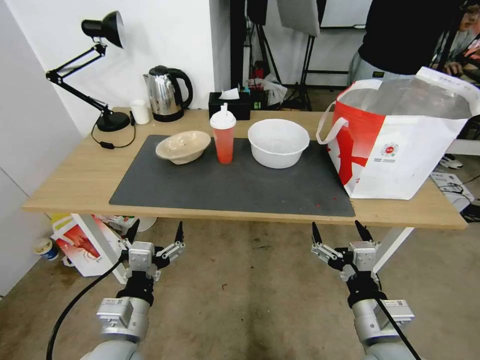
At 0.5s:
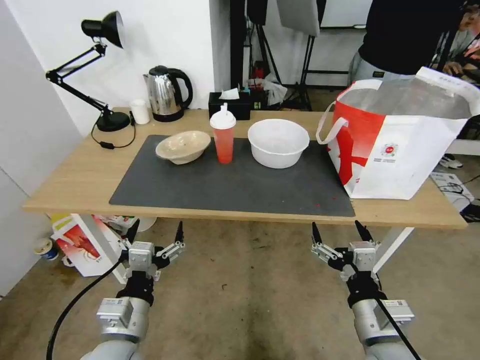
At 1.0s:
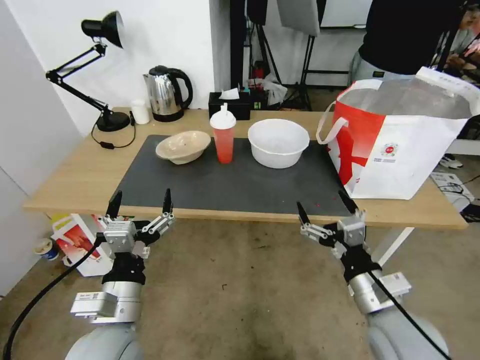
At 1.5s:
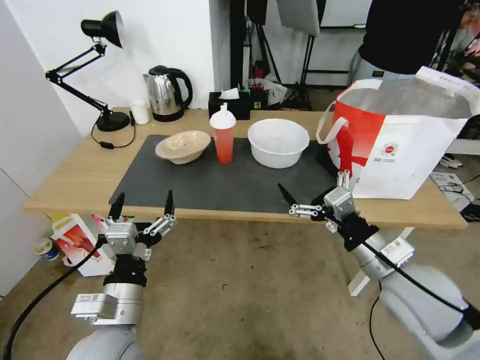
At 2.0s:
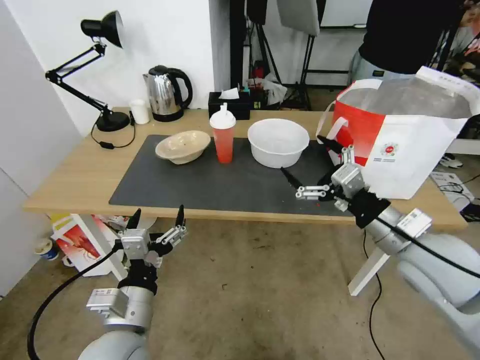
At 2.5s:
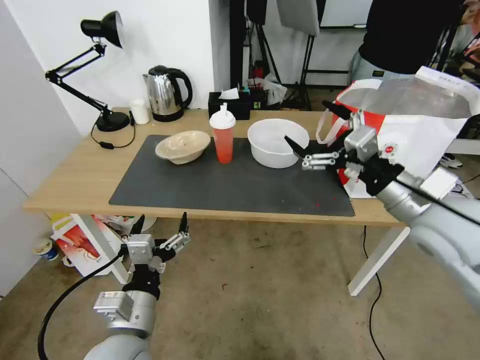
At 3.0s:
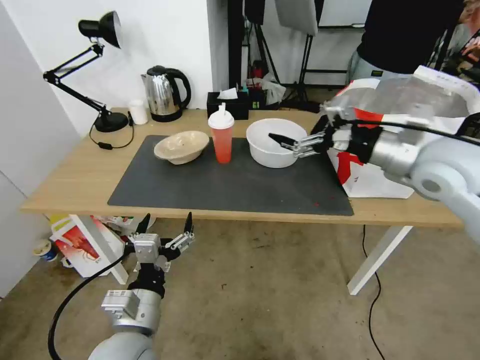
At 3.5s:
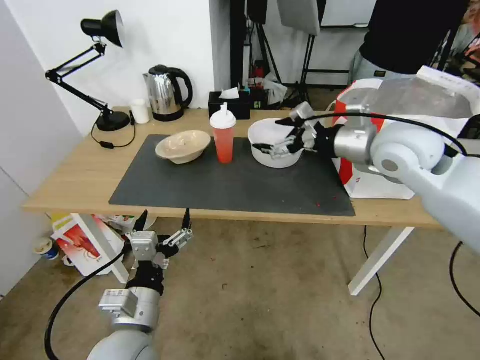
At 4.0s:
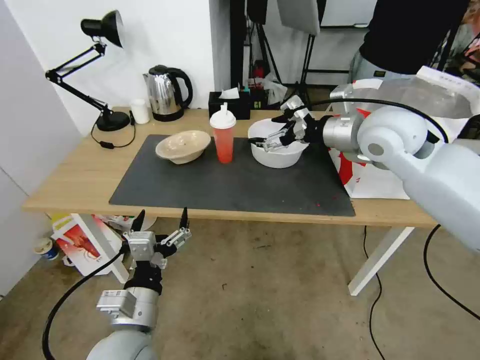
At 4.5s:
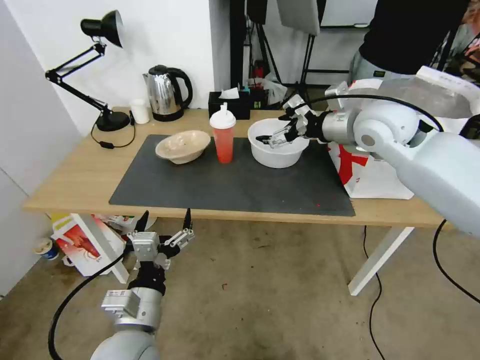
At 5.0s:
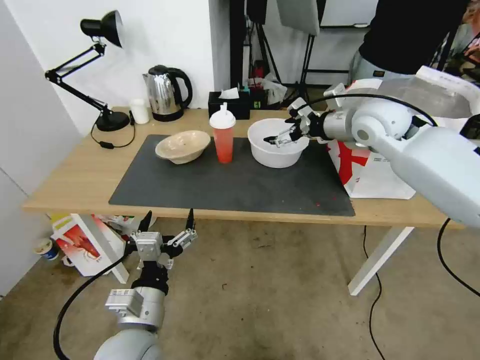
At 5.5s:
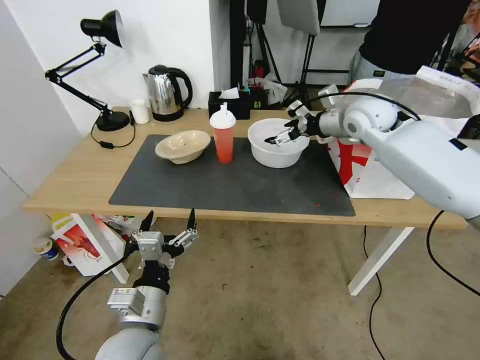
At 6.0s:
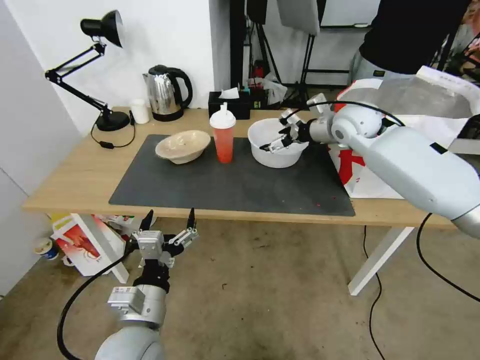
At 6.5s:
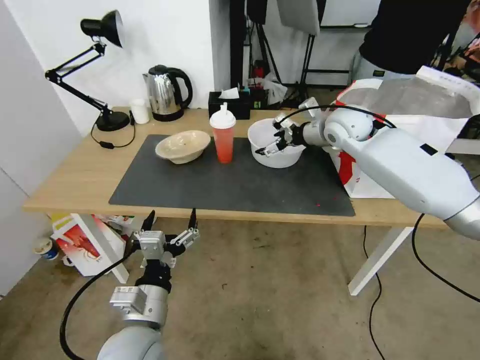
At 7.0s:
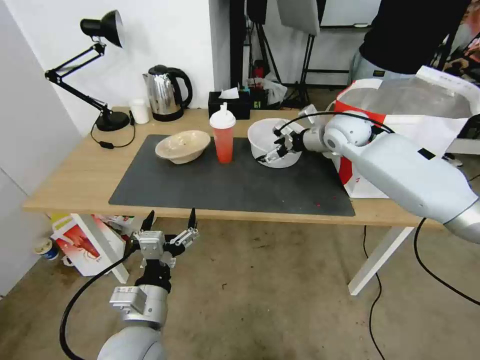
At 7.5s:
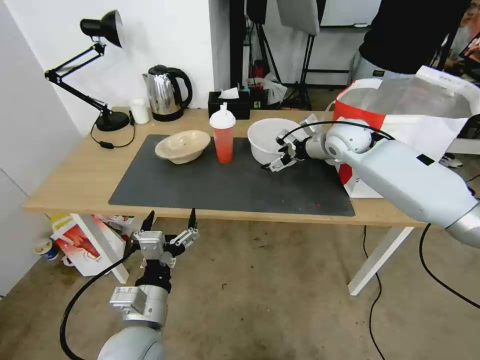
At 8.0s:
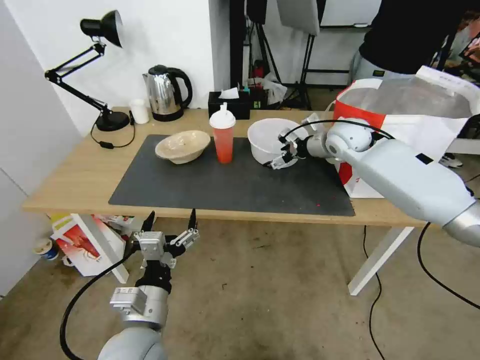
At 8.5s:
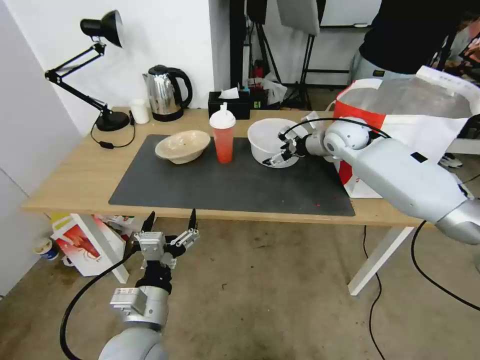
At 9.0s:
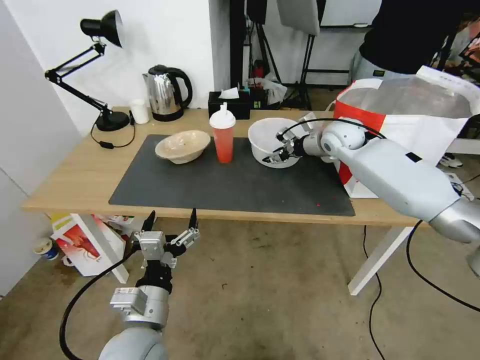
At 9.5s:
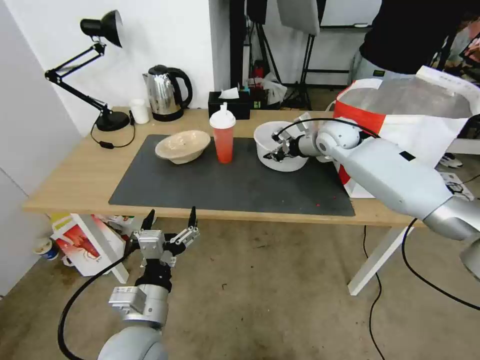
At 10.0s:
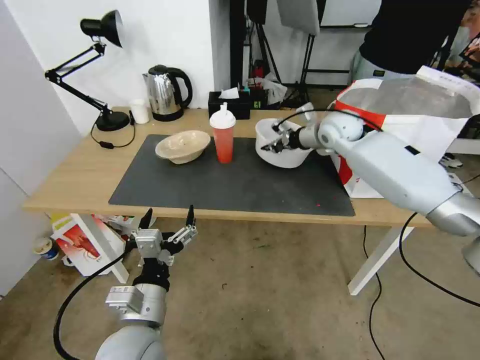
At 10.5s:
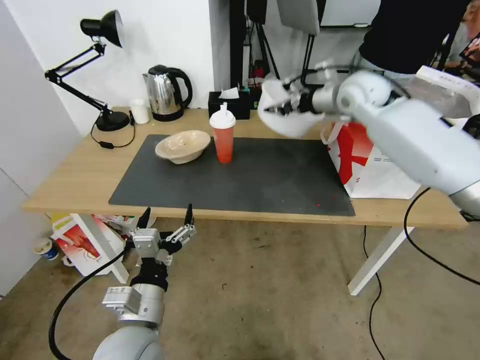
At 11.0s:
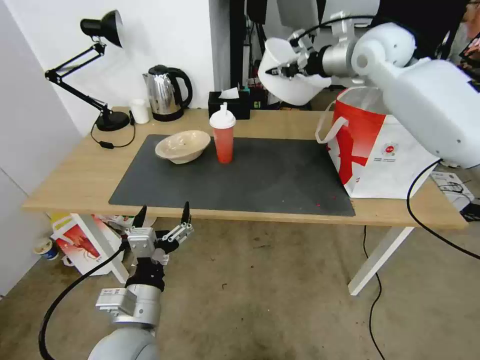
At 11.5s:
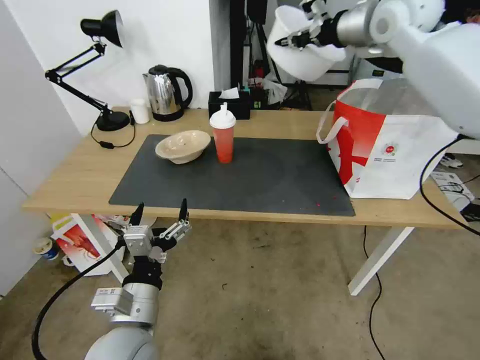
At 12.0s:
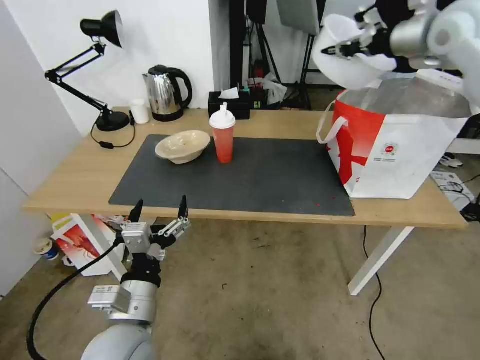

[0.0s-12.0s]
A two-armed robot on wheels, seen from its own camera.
Task of the whole recording: Pick up the trash from the table and place it into the takeout bag.
2.0s to 4.0s: The right gripper is displaced forward and upward by roughly 20 cm.
4.0s to 6.0s: The right gripper travels forward and downward by approximately 15 cm.
6.0s to 8.0s: There are only small adjustments of the grippers.
8.0s to 10.0s: The right gripper closes its fingers.
10.0s to 12.0s: The right gripper goes about 25 cm upward and to the right.

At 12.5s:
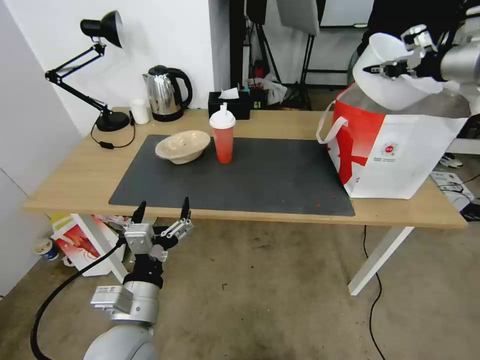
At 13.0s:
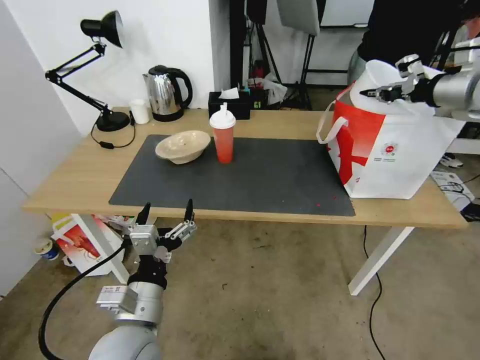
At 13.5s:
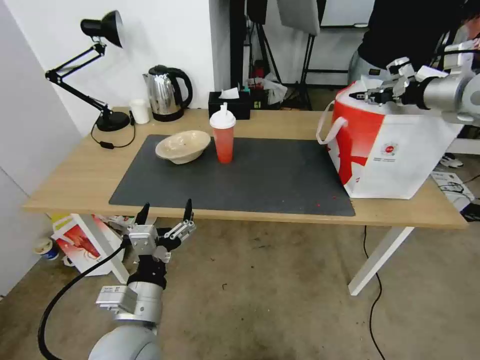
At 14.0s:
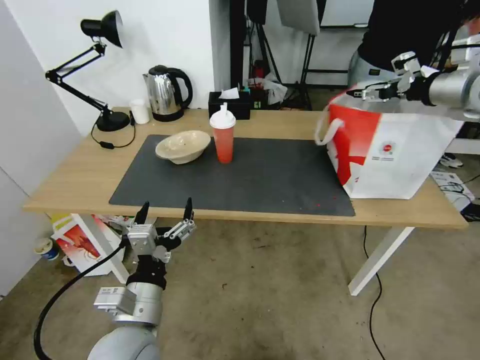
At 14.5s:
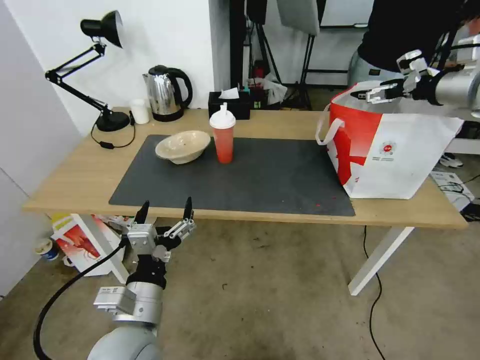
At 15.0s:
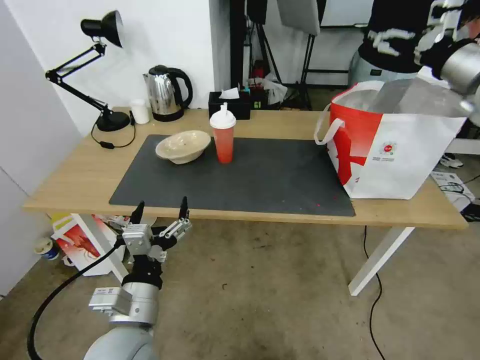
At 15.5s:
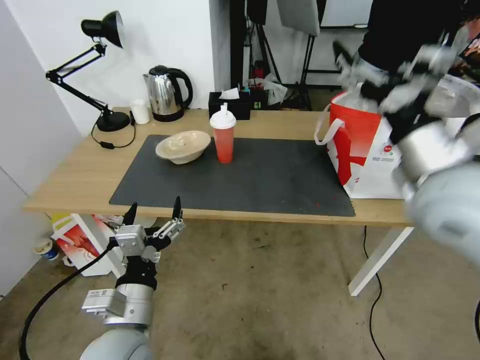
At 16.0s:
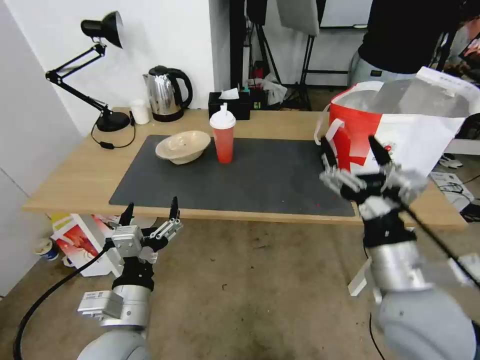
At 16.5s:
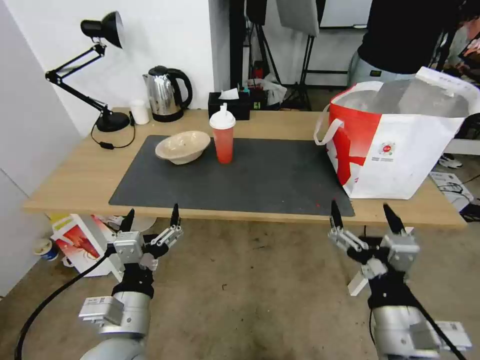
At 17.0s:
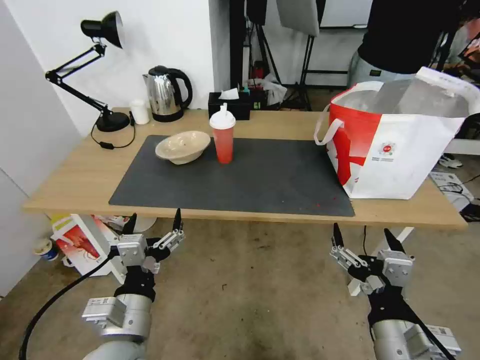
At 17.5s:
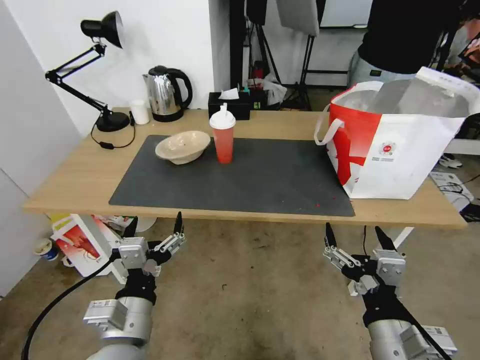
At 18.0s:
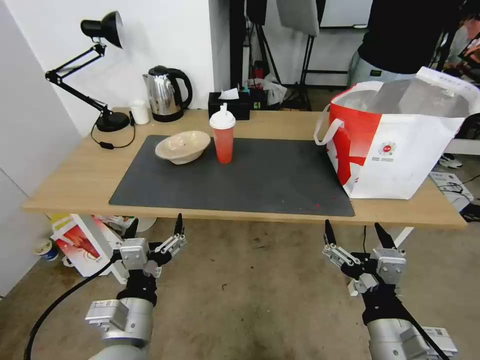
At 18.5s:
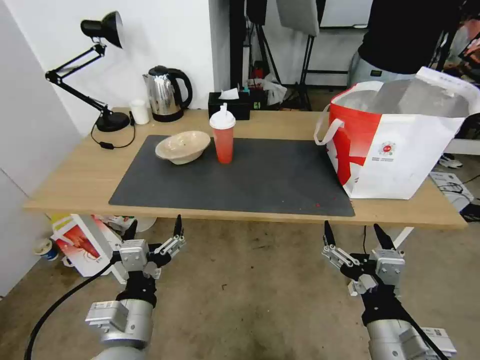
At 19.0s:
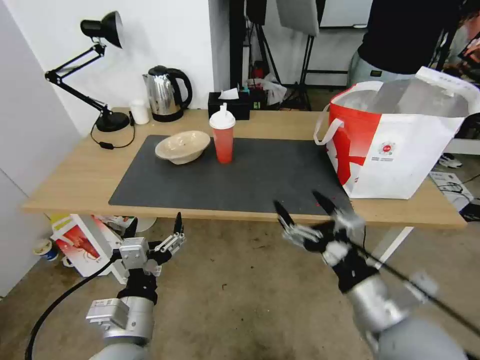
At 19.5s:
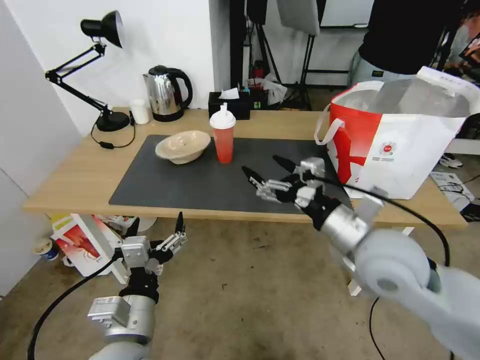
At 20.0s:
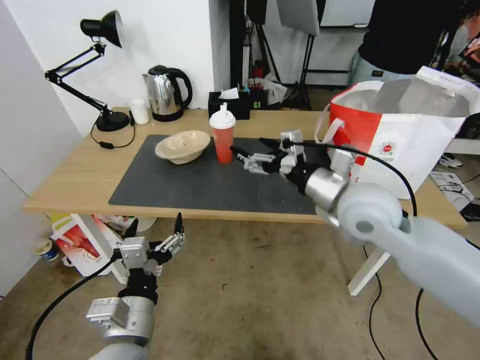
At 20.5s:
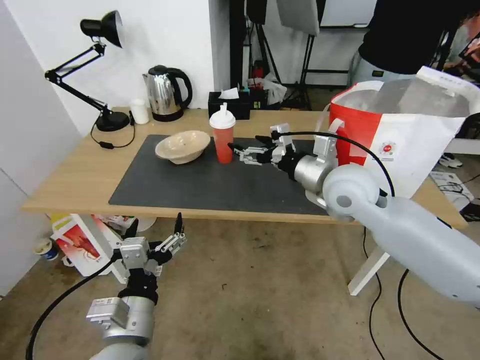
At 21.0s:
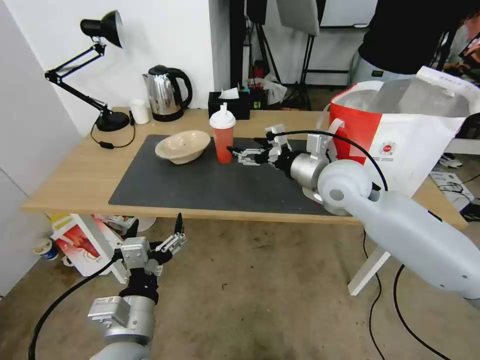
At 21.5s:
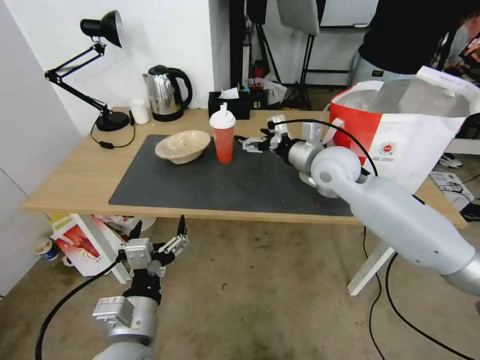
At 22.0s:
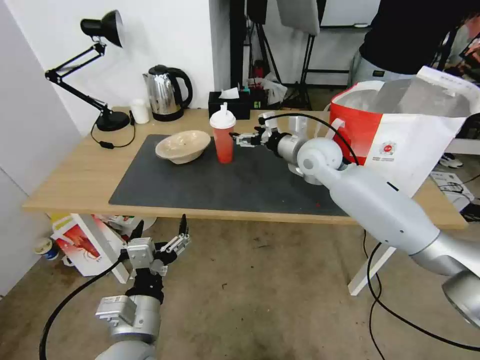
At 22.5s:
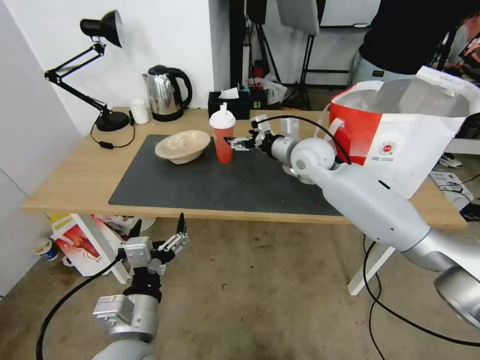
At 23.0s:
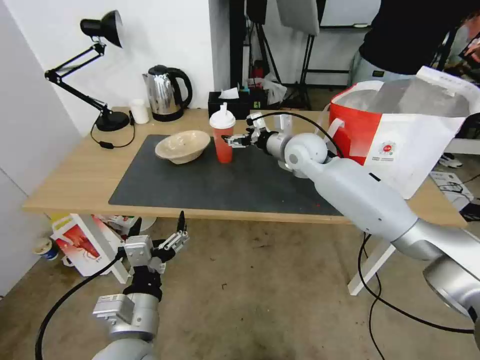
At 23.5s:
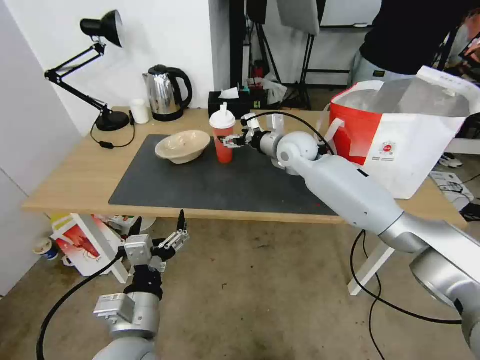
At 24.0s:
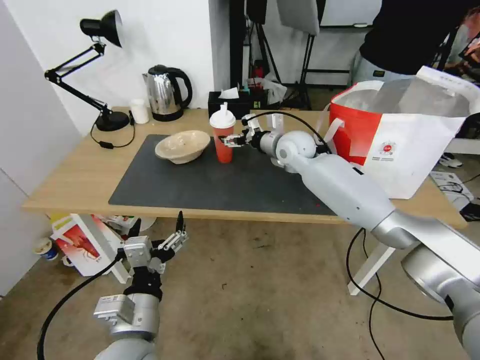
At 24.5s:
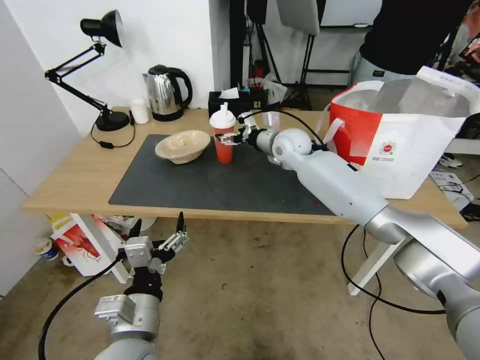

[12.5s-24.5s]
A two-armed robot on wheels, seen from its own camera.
Task of the whole recording: Pick up the trash from the table and place it into the takeout bag.
12.5s to 14.5s: The right gripper opens its fingers.
14.5s to 16.5s: The right gripper moves backward, downward and to the left, roughly 50 cm.
16.5s to 18.5s: The grippers move only a little.
18.5s to 20.5s: The right gripper goes some 30 cm forward.
20.5s to 22.5s: The right gripper travels forward by roughly 15 cm.
22.5s to 24.5s: The right gripper heads forward, covering some 5 cm.

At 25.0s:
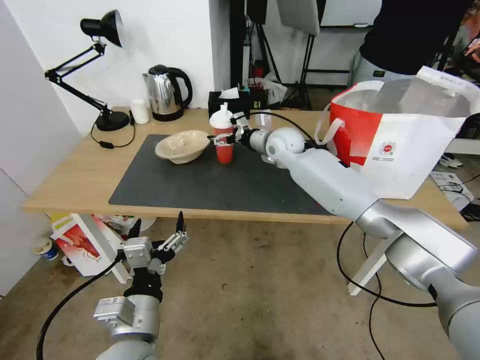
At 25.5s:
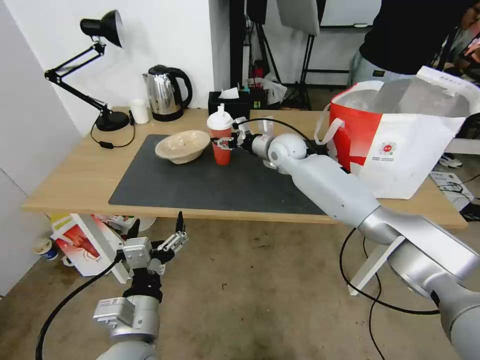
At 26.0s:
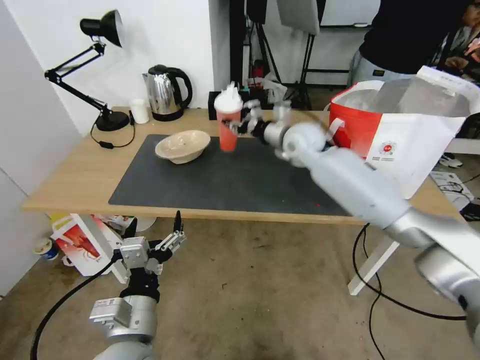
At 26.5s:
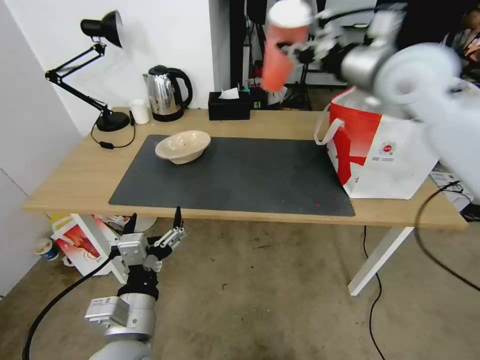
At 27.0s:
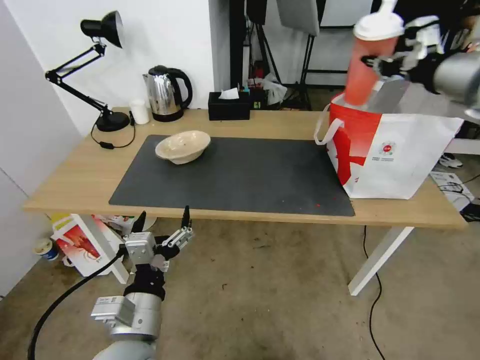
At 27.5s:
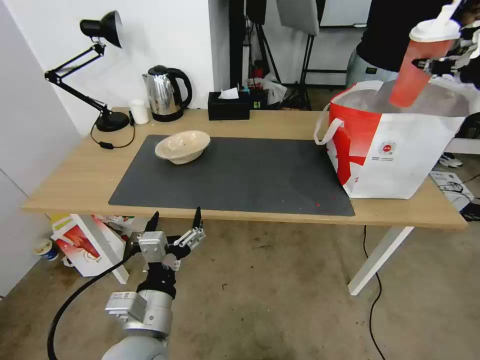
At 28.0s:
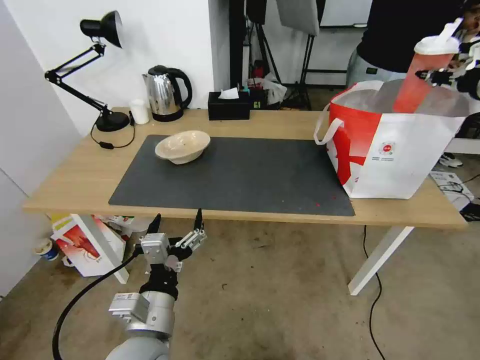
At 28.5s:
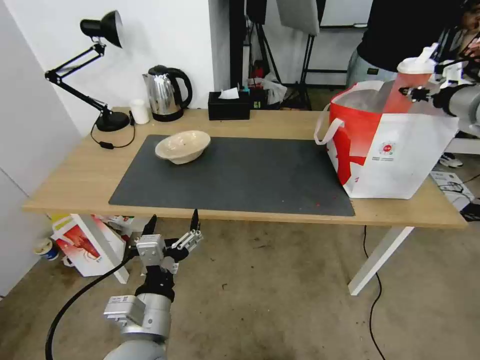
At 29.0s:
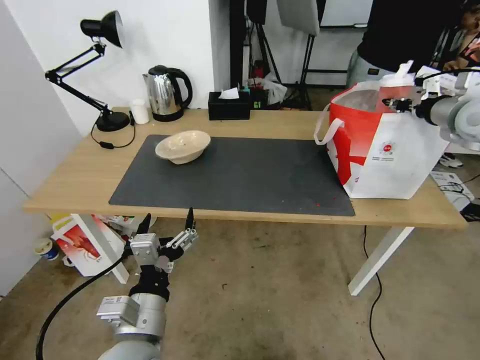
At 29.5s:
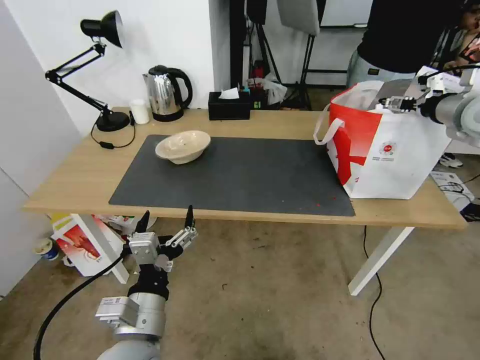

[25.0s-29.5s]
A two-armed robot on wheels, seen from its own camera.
Task of the whole recording: Pick up the trash from the table and place it into the takeout bag.
25.0s to 27.0s: The right gripper moves to the right, upward and backward, approximately 40 cm, and closes its fingers.
27.0s to 29.5s: The right gripper moves to the right, downward and forward, approximately 15 cm, and opens.
